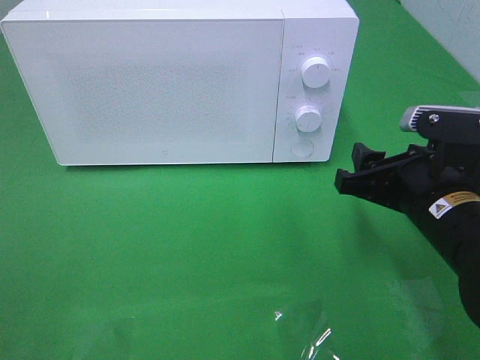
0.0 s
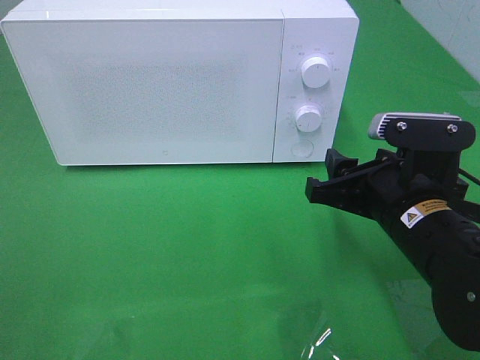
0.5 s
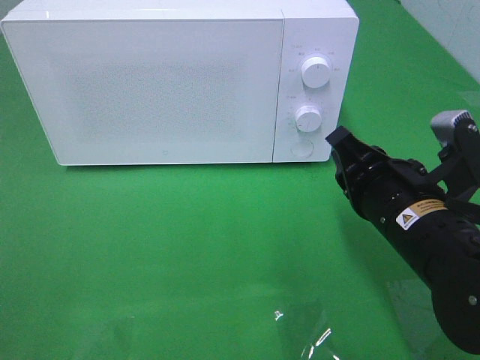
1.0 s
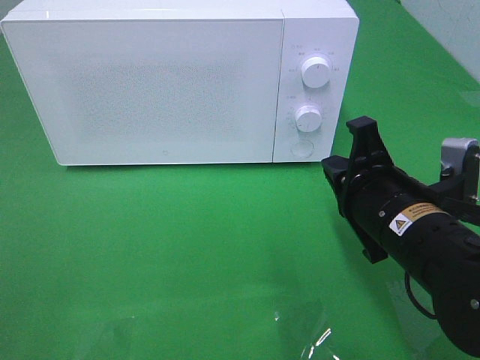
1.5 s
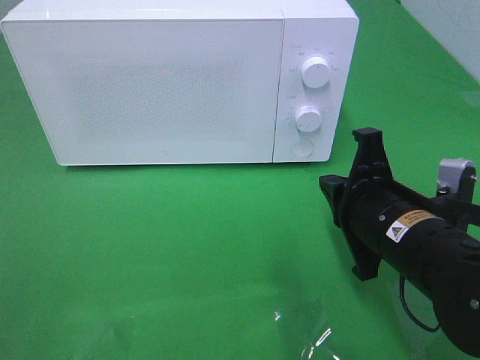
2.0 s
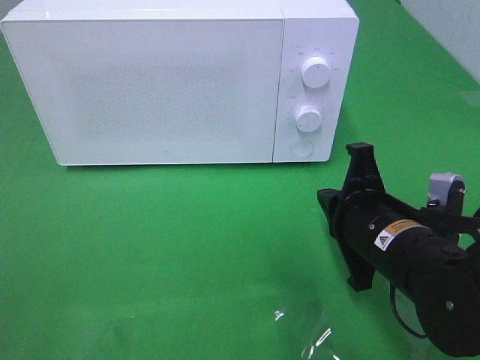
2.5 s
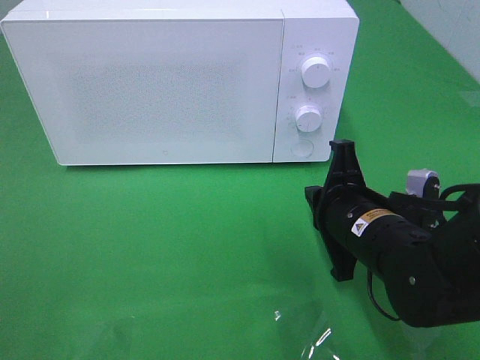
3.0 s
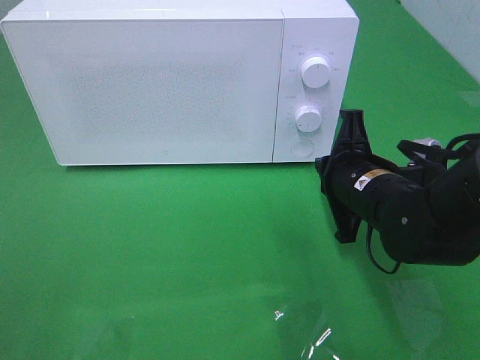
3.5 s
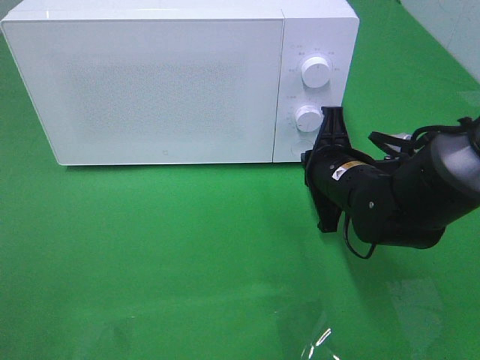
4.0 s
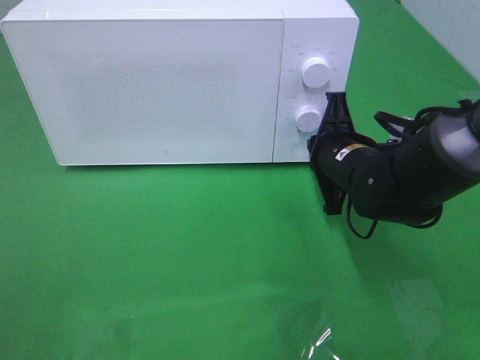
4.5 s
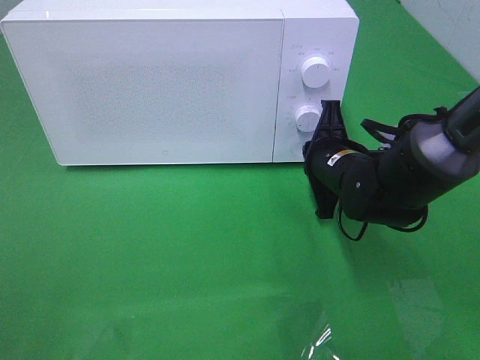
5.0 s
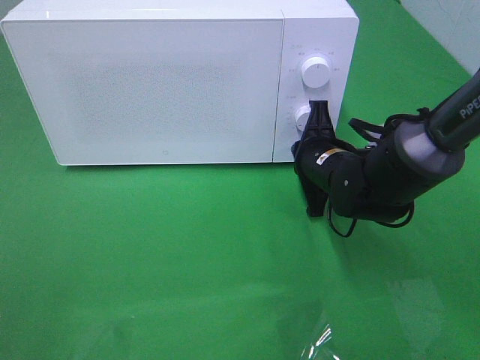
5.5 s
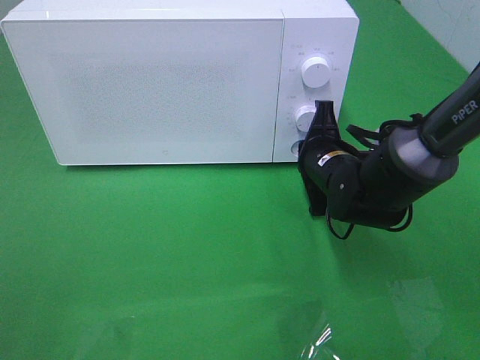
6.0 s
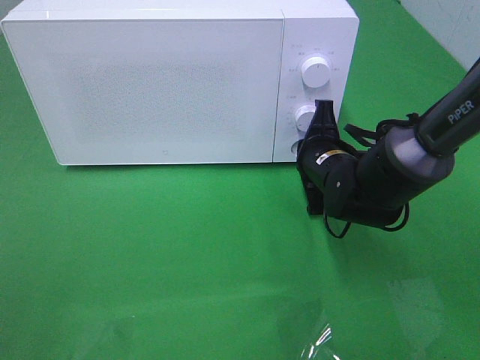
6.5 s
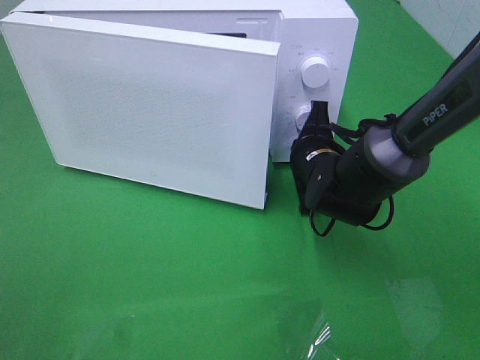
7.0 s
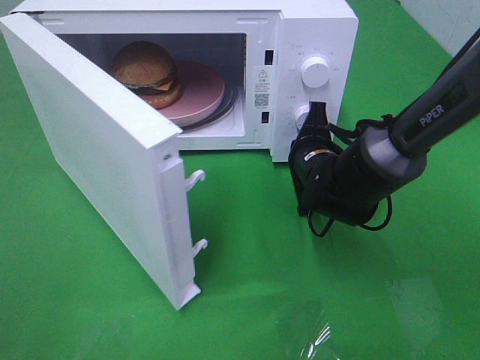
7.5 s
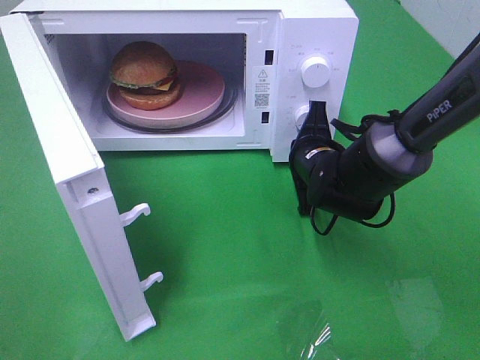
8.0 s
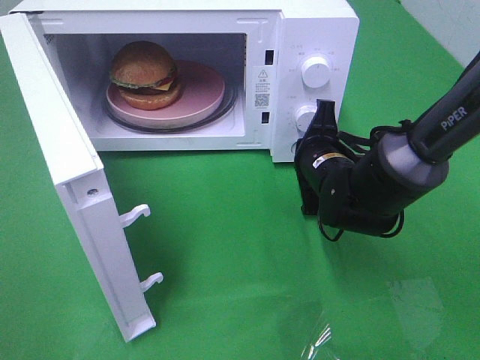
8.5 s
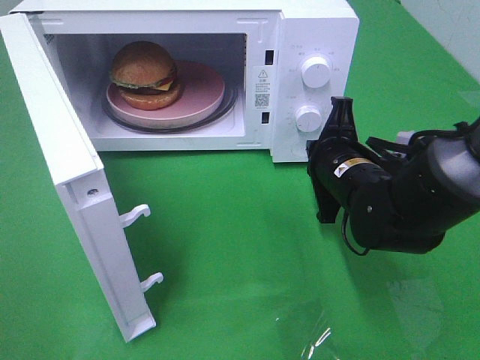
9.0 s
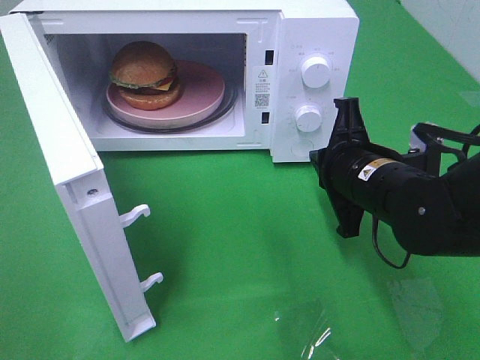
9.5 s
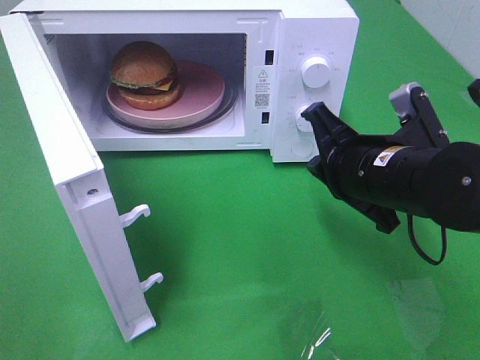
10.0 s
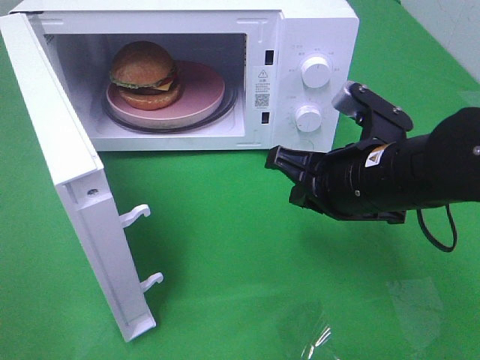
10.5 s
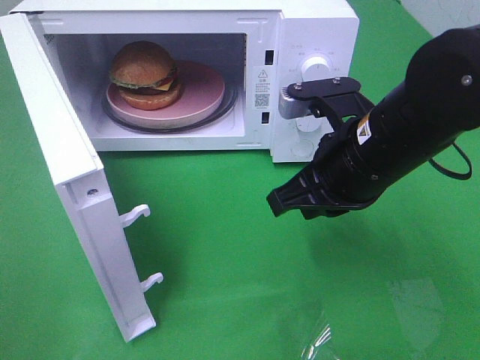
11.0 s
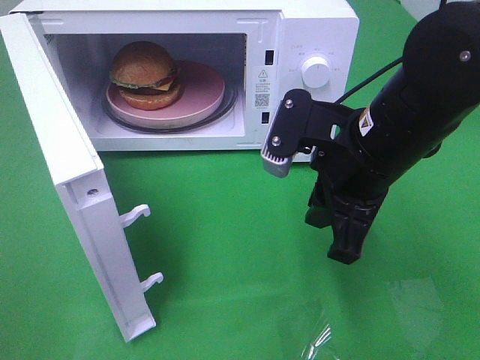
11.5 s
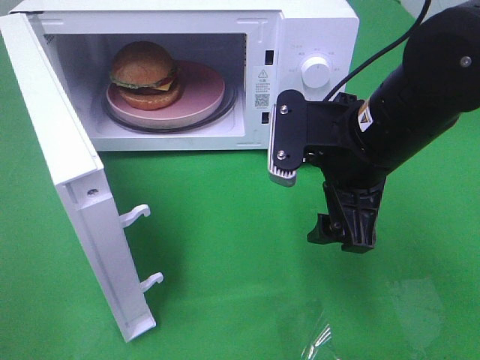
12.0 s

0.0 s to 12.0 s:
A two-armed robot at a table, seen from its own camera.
Task of the whole recording: Heat the burger.
Step, 0.0 to 9.0 s: Right hand: press the switch.
0.0 to 2.0 s: The right gripper closes its fingers.
2.0 to 4.0 s: The right gripper heads forward, covering about 10 cm.
4.0 to 6.0 s: The grippers make only small movements.
8.0 to 10.0 s: The right gripper moves backward and upward, roughly 15 cm.
10.0 to 12.0 s: The right gripper moves approximately 5 cm, and opens.

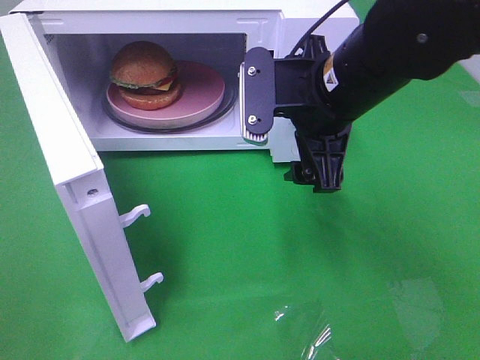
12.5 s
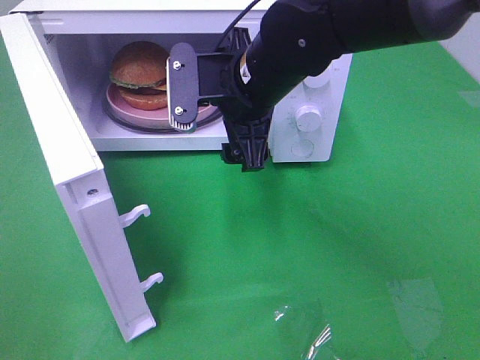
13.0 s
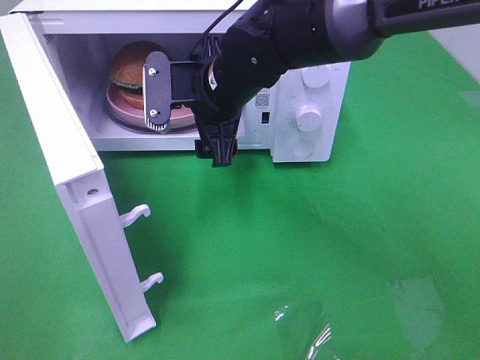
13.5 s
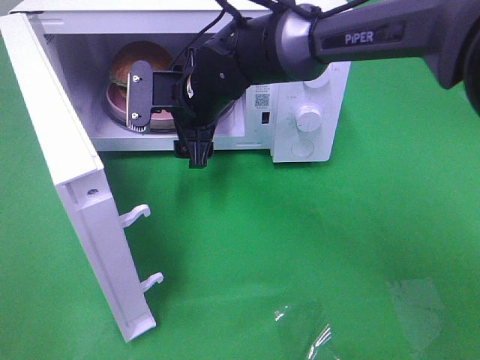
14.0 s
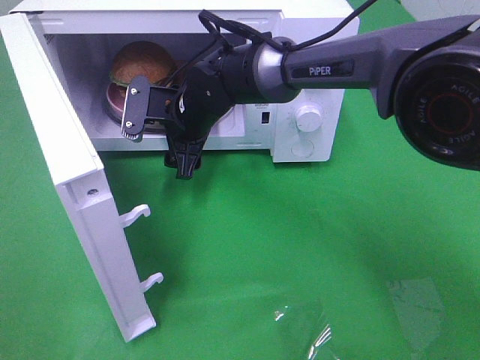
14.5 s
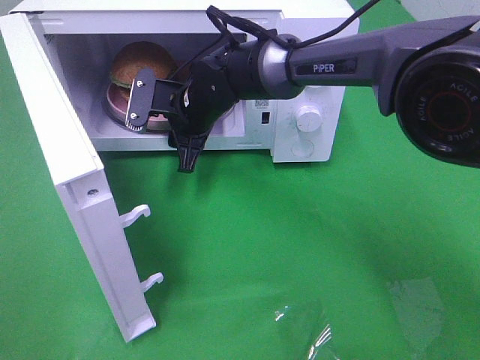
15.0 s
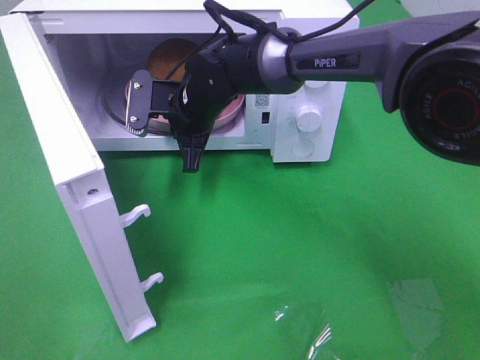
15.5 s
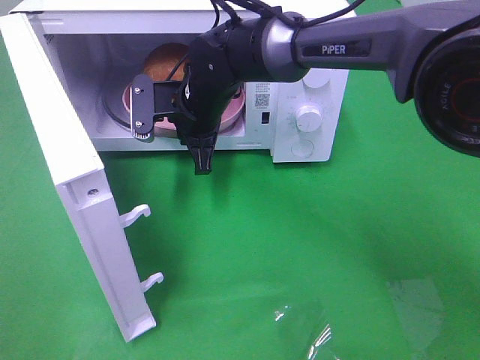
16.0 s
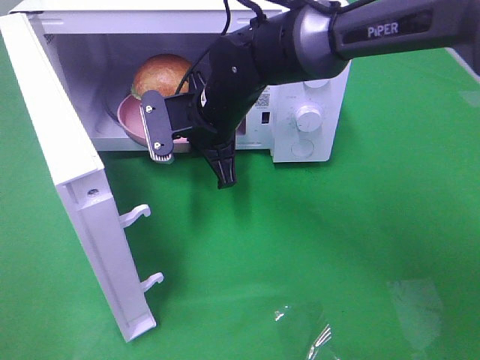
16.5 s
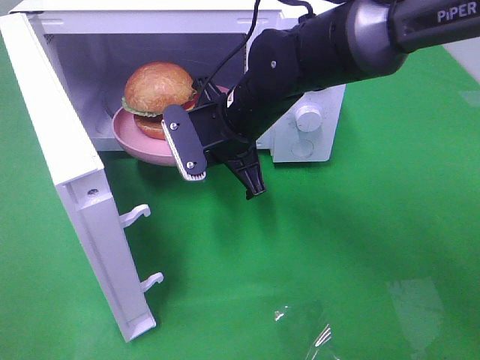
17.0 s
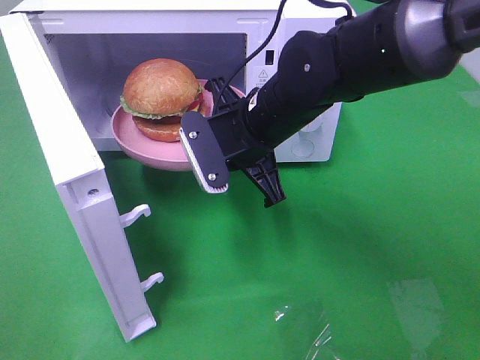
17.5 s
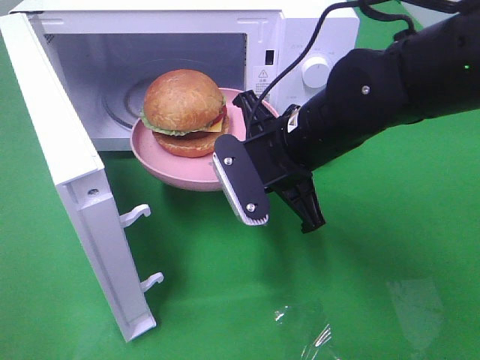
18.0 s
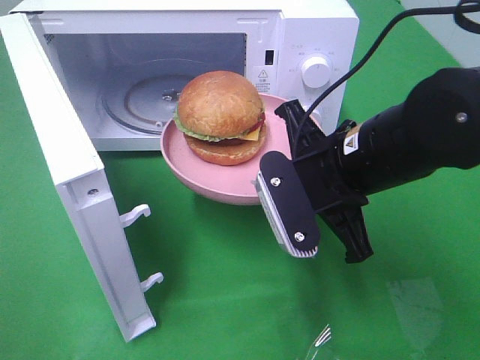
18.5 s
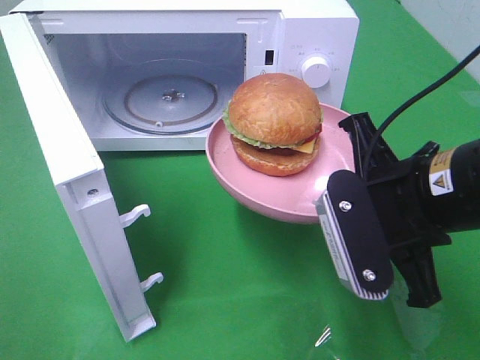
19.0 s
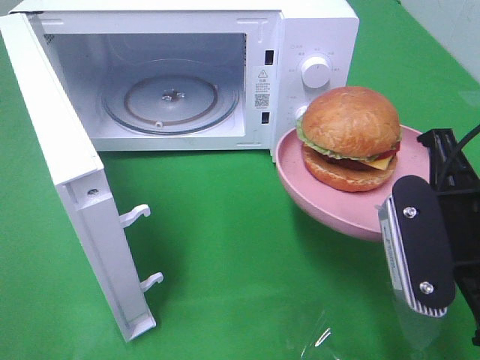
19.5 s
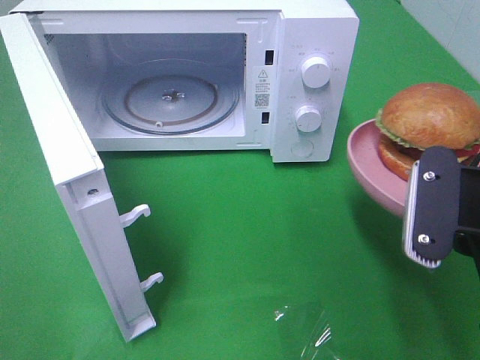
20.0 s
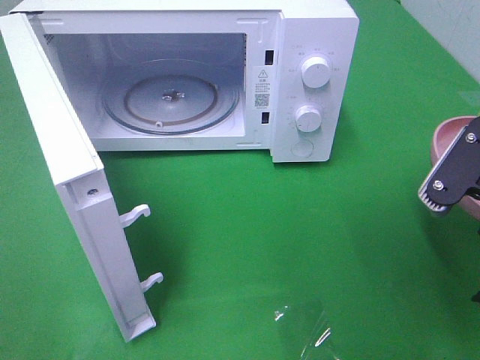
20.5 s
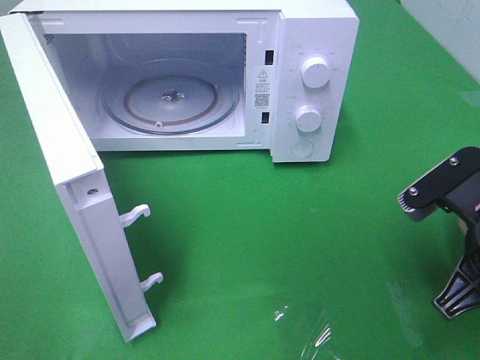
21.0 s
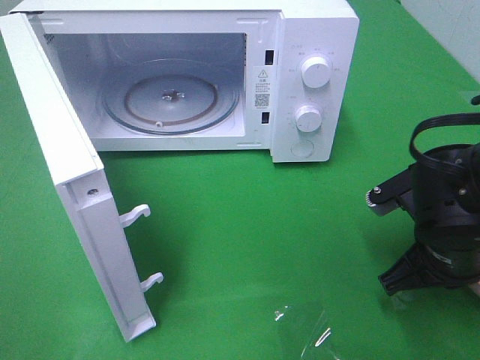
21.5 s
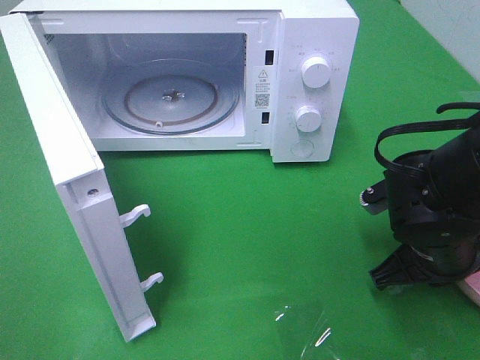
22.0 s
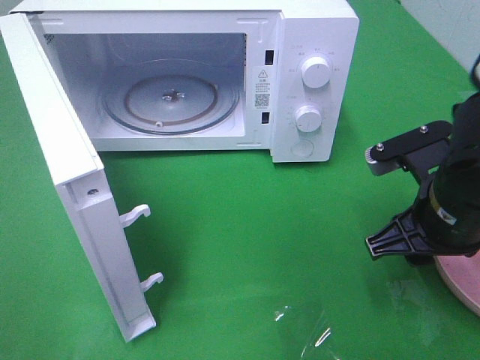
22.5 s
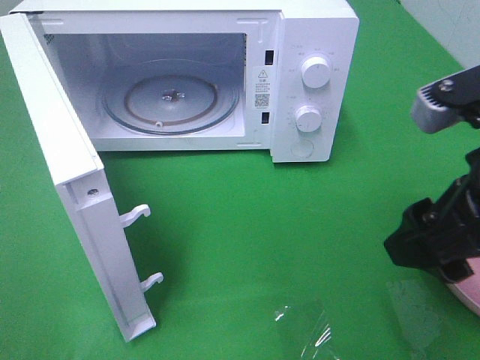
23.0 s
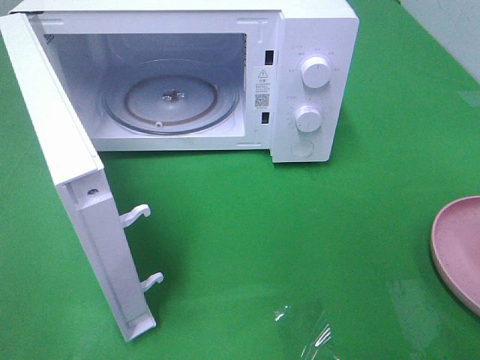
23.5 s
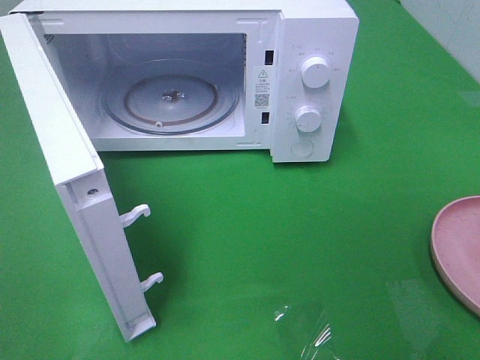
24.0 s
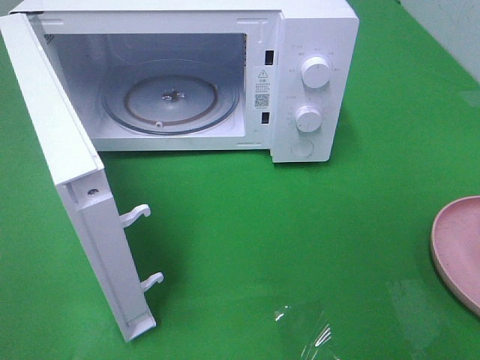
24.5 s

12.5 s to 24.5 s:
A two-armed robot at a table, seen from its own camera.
Task of the whole recording: Heat the burger.
Step, 12.5 to 15.0 s: Right hand: grab the plate with the hamburger.
Step, 15.5 to 22.5 s: Right hand: place the plate on the table.
12.5 to 14.5 s: The right gripper is displaced to the left, forward and downward by about 20 cm.
14.5 to 16.5 s: The right gripper moves approximately 5 cm, and closes up.
16.5 to 18.5 s: The right gripper goes about 20 cm backward and to the right.
18.5 to 20.5 s: The right gripper is displaced to the right and backward by approximately 15 cm.
20.5 to 22.5 s: The right gripper heads forward, covering roughly 5 cm, and opens.
22.5 to 24.5 s: The right gripper goes some 25 cm backward, upward and to the right.

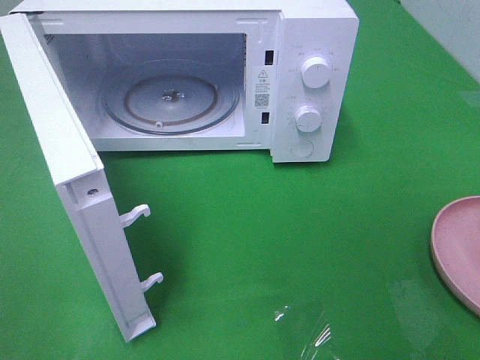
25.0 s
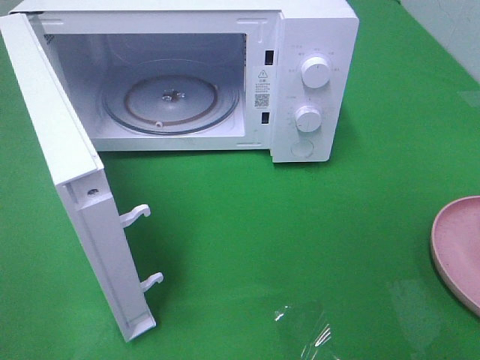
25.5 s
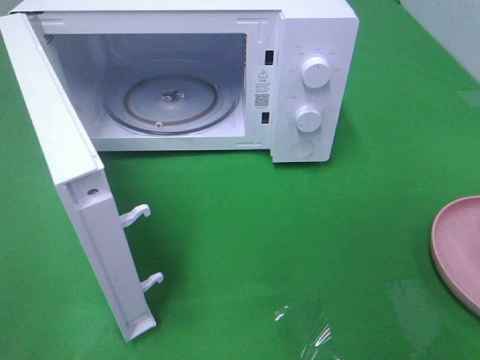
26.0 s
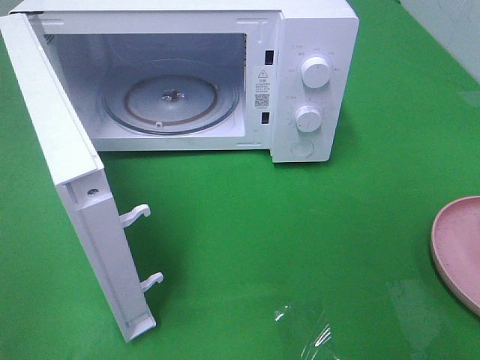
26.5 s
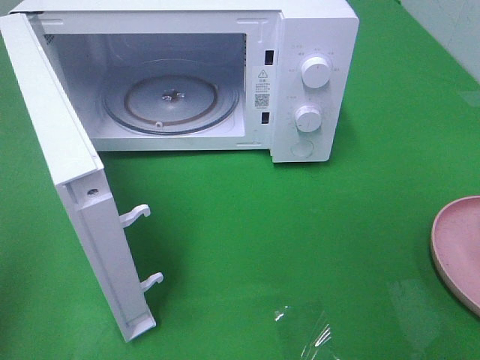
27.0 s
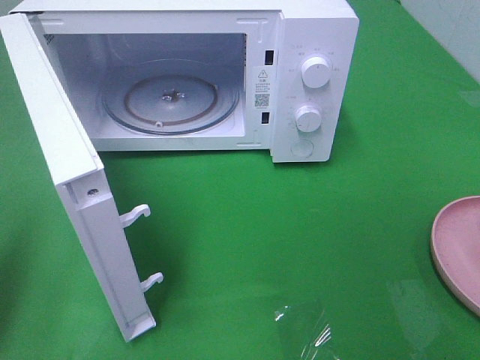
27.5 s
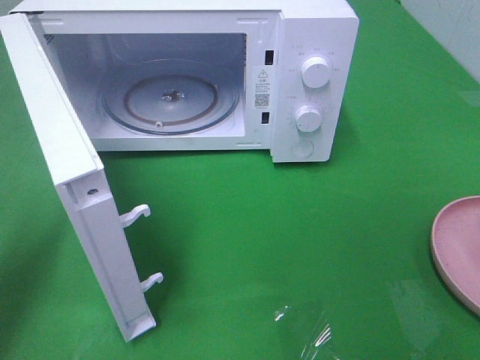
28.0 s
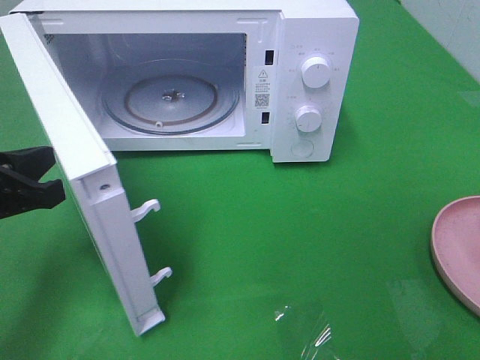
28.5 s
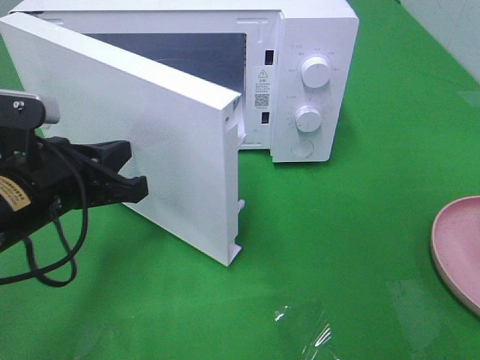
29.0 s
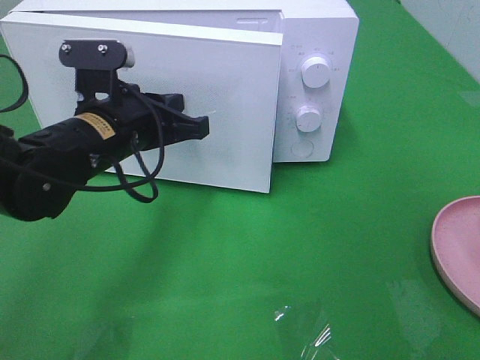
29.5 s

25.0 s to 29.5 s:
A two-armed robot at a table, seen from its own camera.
Task of the whole recording: Heat the burger.
27.0 to 29.5 s: The left gripper travels to the right, forward and downward by about 30 cm.
